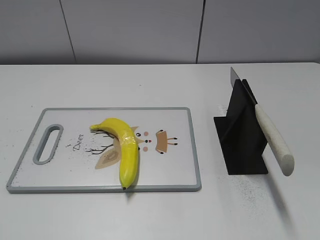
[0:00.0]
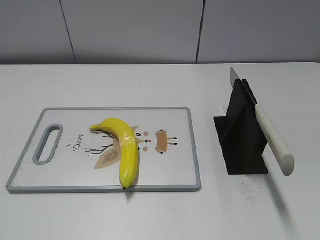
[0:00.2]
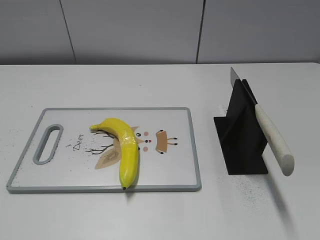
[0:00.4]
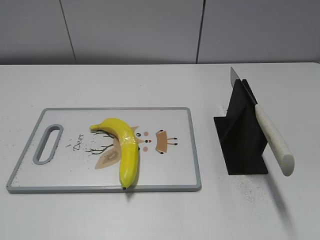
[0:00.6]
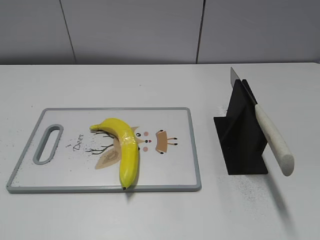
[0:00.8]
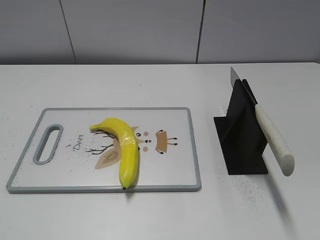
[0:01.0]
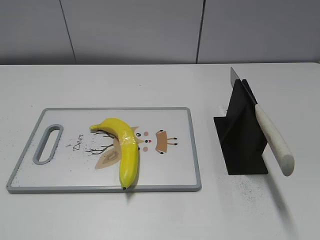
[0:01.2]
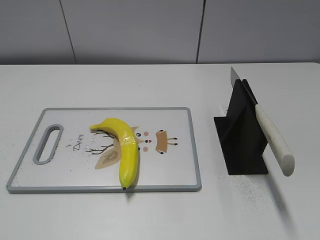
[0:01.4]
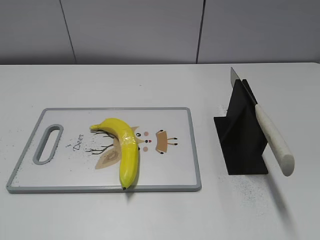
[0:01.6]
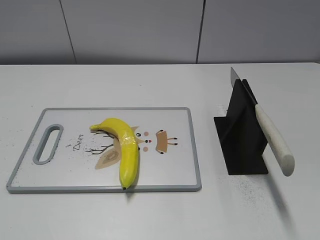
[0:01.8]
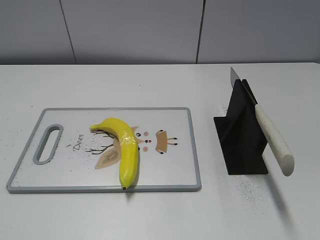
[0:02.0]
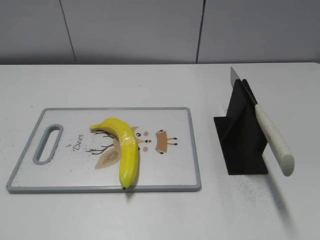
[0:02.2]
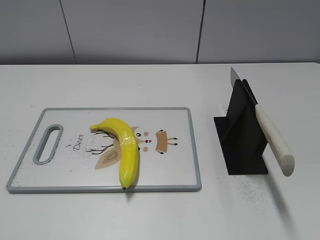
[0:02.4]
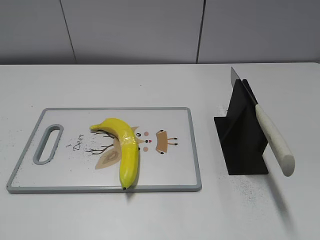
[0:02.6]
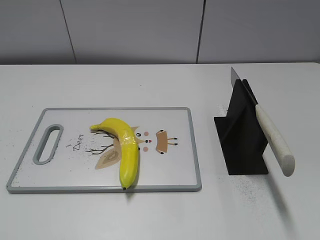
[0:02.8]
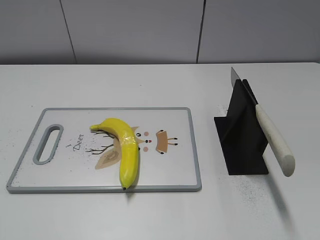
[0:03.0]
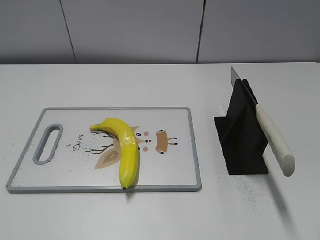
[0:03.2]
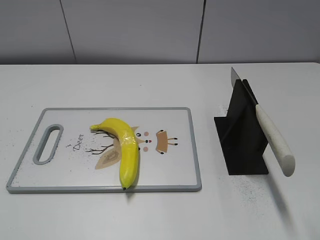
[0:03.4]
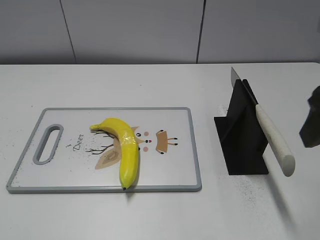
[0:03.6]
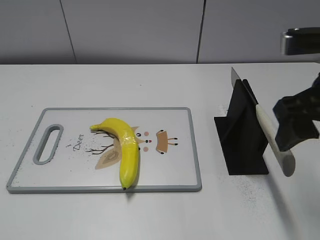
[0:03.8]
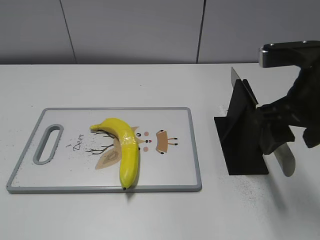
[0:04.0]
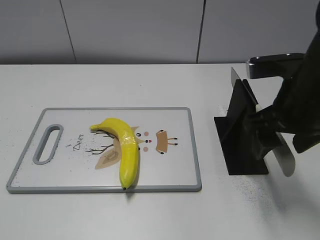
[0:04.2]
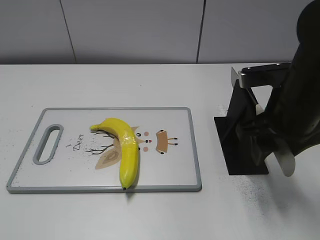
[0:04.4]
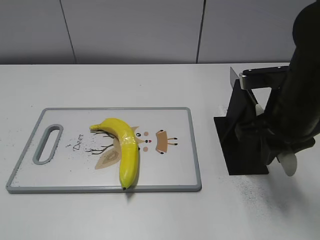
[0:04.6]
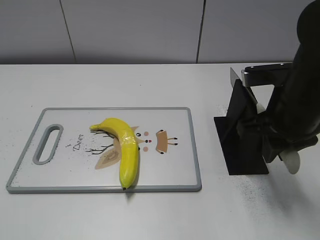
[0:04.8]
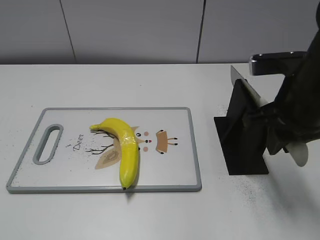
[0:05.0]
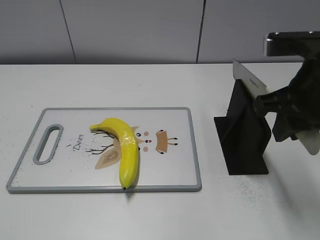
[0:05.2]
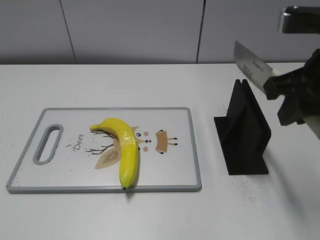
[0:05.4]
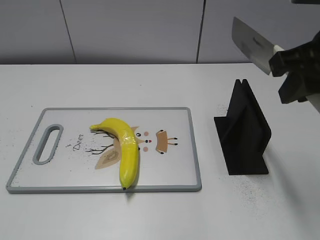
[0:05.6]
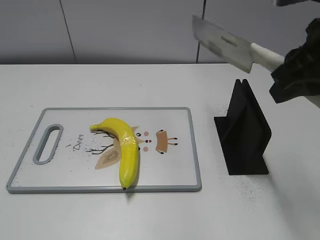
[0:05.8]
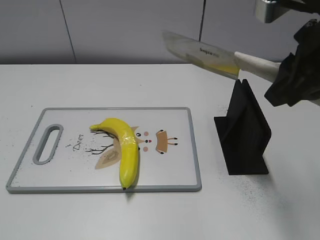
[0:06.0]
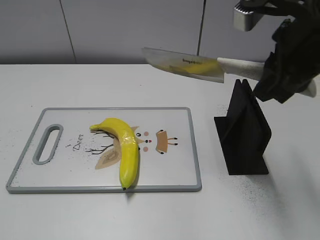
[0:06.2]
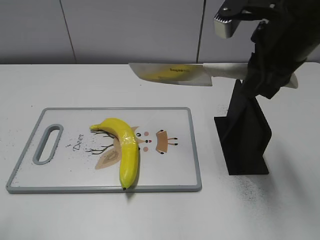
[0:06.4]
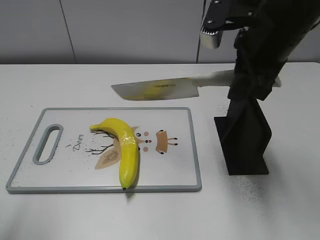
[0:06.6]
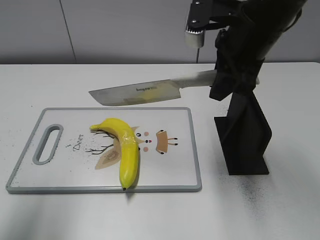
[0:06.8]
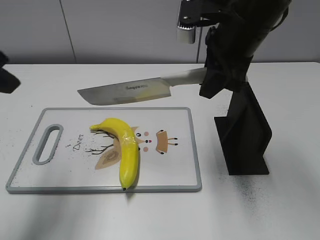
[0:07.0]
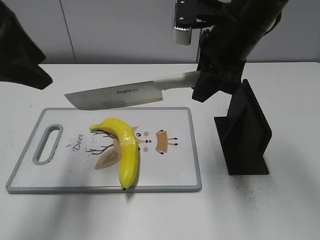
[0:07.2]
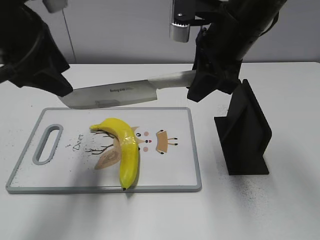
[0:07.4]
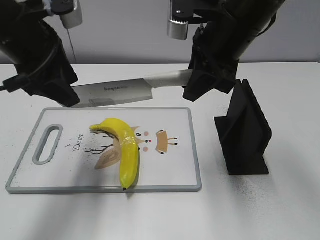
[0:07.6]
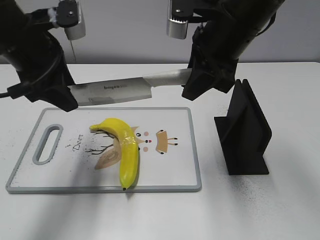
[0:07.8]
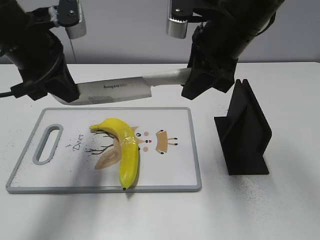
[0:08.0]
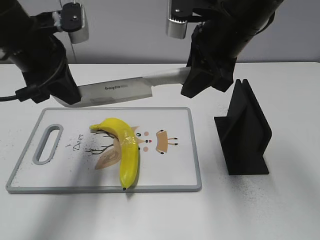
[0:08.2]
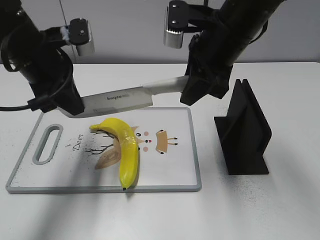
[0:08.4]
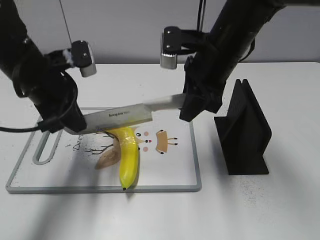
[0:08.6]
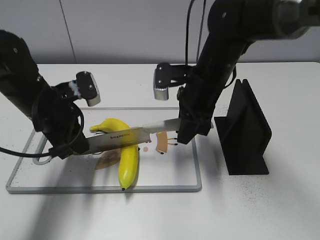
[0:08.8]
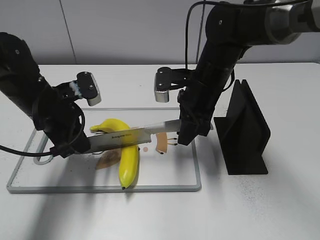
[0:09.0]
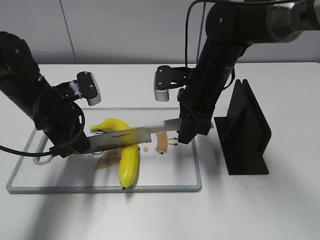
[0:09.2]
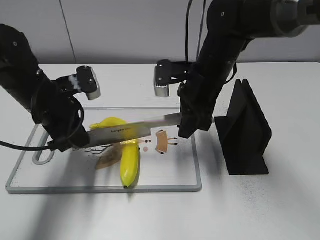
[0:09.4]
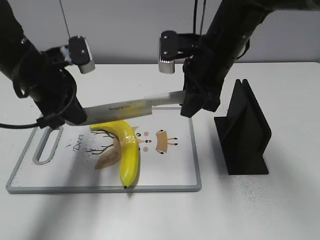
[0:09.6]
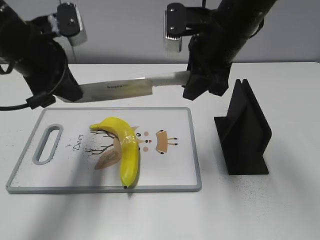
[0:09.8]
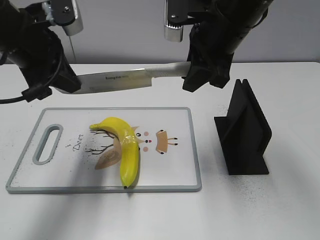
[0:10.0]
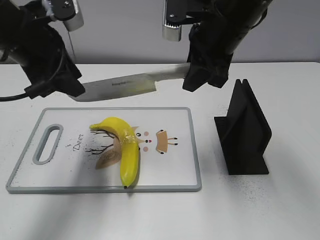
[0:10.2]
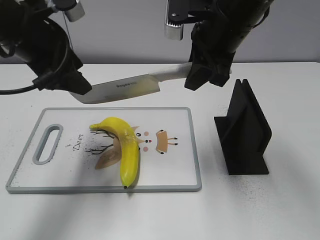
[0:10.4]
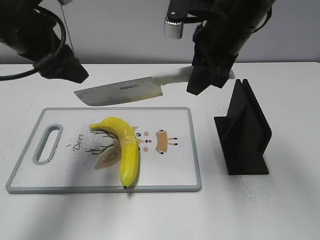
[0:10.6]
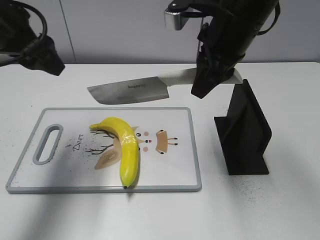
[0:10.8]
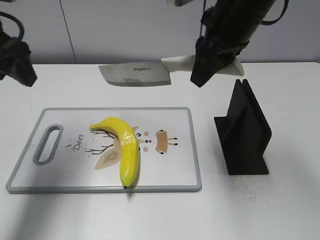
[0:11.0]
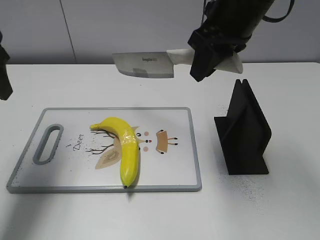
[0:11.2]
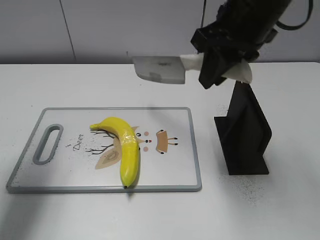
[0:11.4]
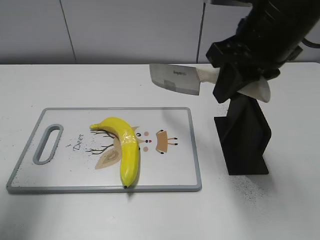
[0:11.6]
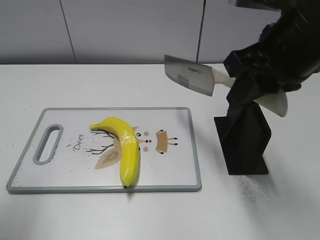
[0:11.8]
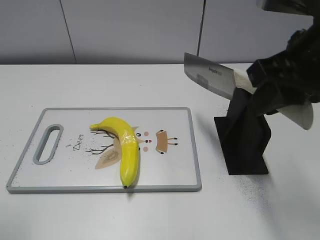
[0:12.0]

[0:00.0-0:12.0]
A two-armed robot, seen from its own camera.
Task of the whole recording: cut plastic banana.
Step, 0:00.0 to 0:05.6: Grab the knife handle with your right hand.
Step, 0:05.8 to 0:10.0: Lift the knife with your right hand.
Step, 0:10.2 to 0:11.2: Cut the banana with your right hand.
0:03.0 to 0:04.4: The right gripper shifts roughly 20 cm forward, downward and to the left.
0:04.4 to 0:06.0: The right gripper goes some 10 cm upward, and closes its fingers.
0:06.0 to 0:07.6: The left gripper travels forward and to the right by some 30 cm. The right gripper travels forward and to the left by some 10 cm.
0:07.6 to 0:09.0: Both grippers move downward, roughly 15 cm. The left gripper closes its fingers.
0:09.0 to 0:10.4: The grippers both shift upward by some 15 cm. The left gripper opens.
0:10.4 to 0:12.0: The right gripper goes some 15 cm backward and to the right. Meanwhile the left gripper heads backward and to the left, covering roughly 20 cm.

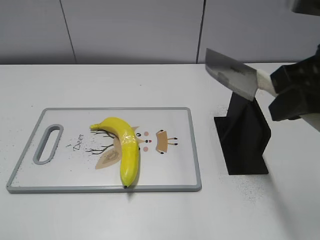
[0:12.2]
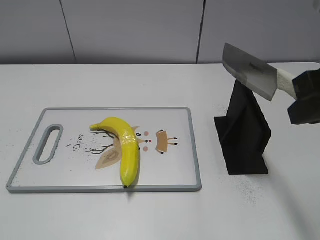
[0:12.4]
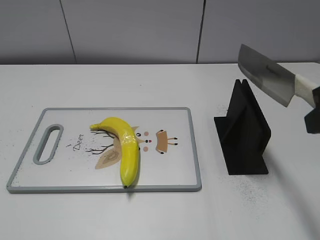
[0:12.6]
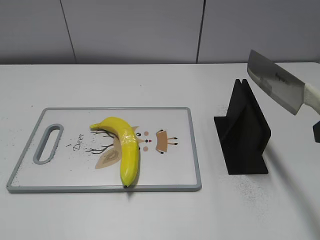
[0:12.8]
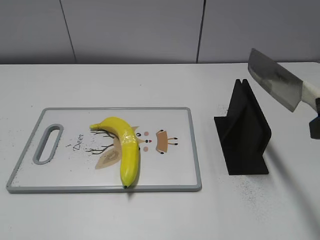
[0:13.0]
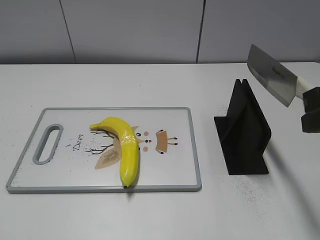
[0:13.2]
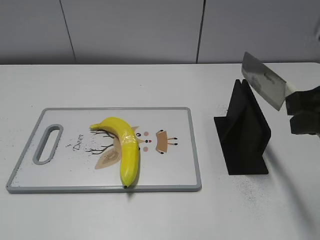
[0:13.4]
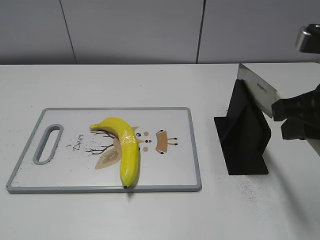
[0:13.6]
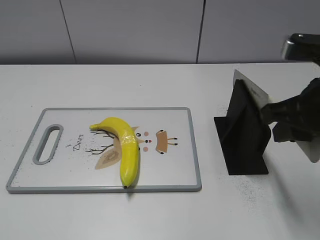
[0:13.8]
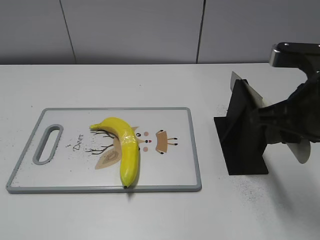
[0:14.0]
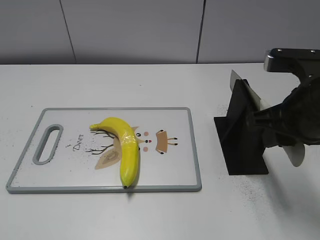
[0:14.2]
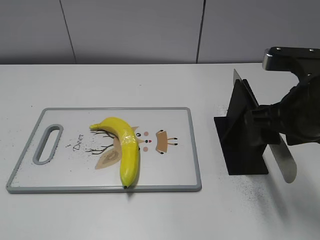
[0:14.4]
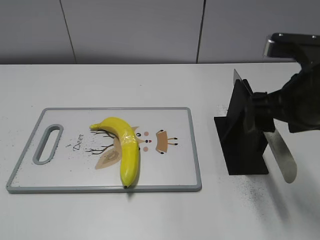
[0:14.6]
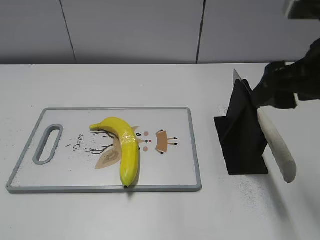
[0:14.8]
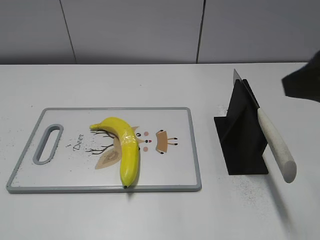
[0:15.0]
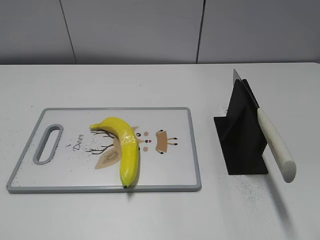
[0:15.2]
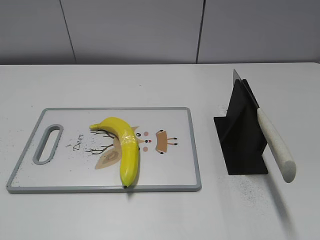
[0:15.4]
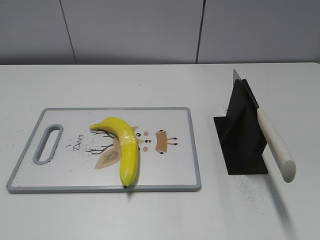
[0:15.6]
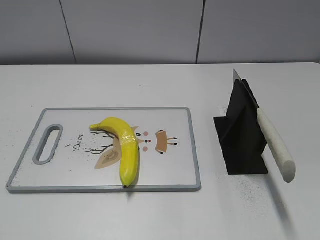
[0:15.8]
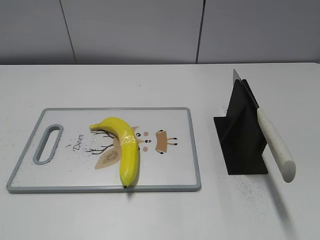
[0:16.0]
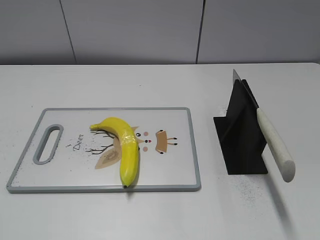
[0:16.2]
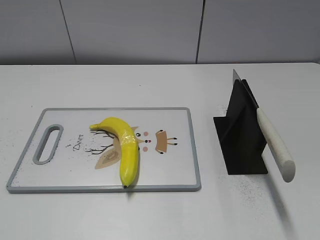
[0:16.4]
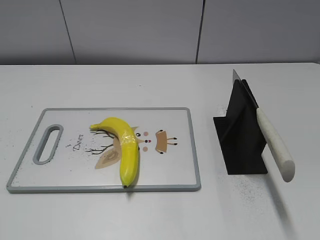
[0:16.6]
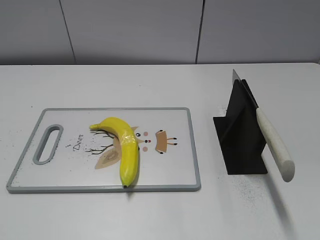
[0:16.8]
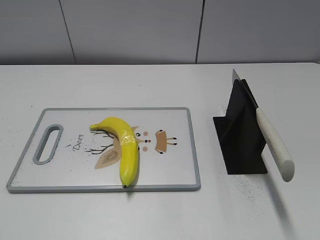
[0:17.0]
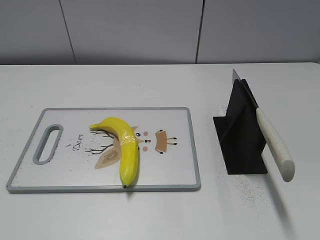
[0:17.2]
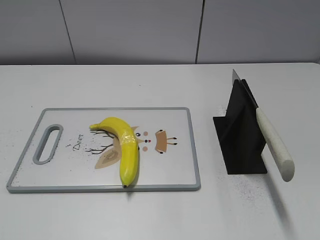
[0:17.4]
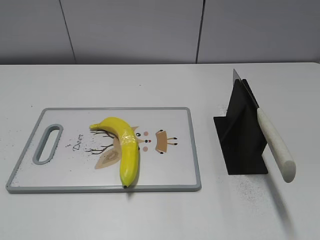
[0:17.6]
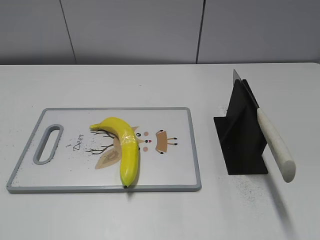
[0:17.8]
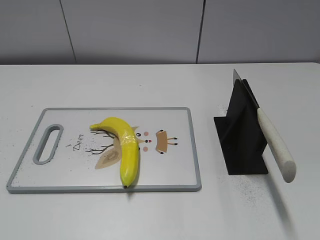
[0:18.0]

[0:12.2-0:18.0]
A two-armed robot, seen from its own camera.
Task of the whole recording: cut plastic banana.
Step, 0:12.6 to 0:18.0: Place the knife on the storage rack with your right hand.
0:13.6 to 0:15.0: The right gripper travels upward by approximately 5 cm, and opens its fingers.
0:15.0 to 0:16.6: The right gripper moves backward and to the right, about 20 cm.

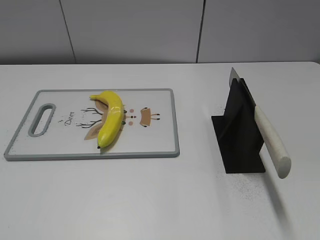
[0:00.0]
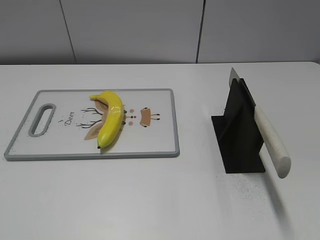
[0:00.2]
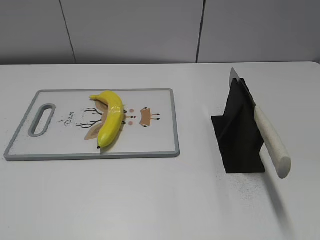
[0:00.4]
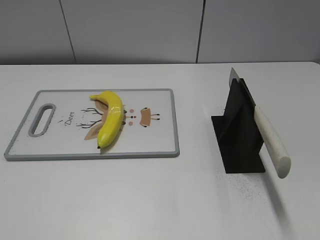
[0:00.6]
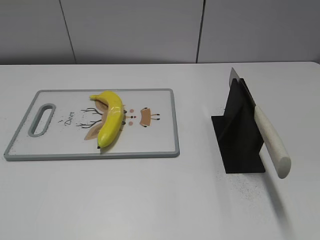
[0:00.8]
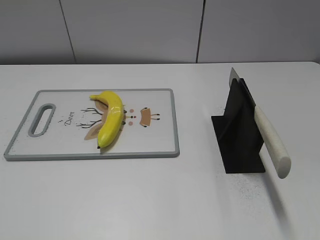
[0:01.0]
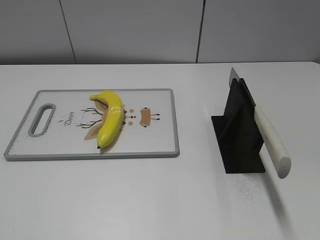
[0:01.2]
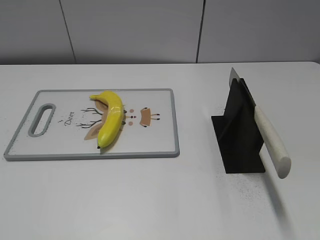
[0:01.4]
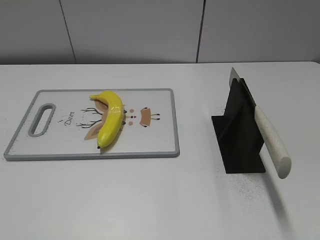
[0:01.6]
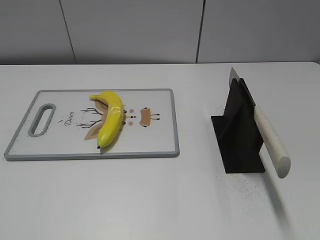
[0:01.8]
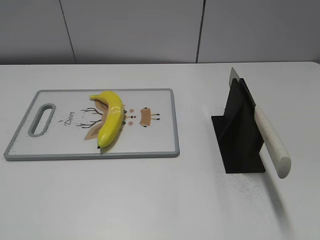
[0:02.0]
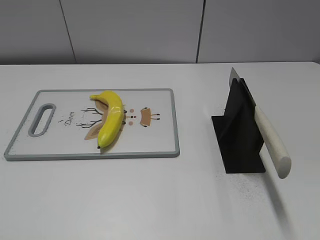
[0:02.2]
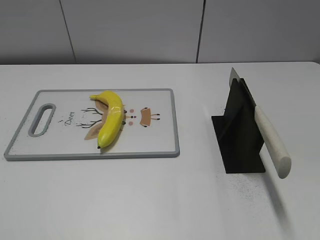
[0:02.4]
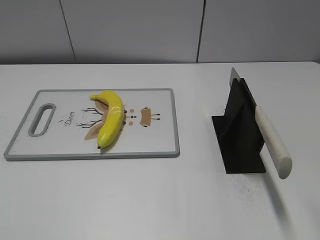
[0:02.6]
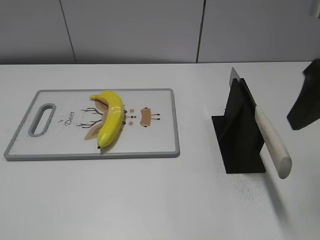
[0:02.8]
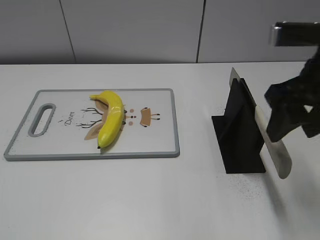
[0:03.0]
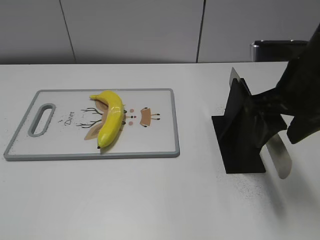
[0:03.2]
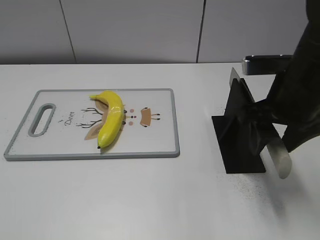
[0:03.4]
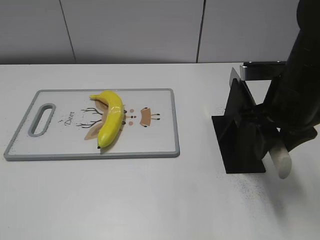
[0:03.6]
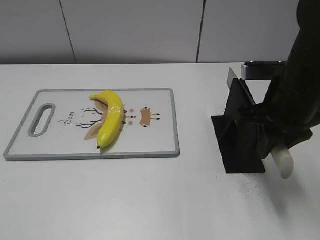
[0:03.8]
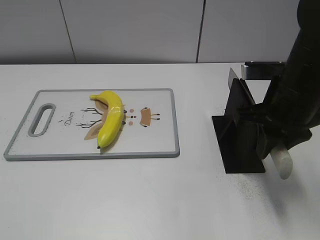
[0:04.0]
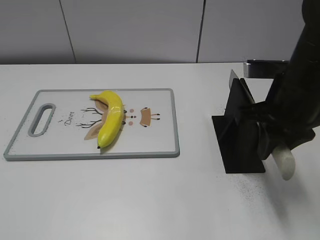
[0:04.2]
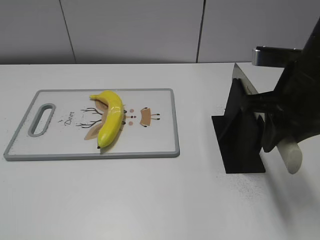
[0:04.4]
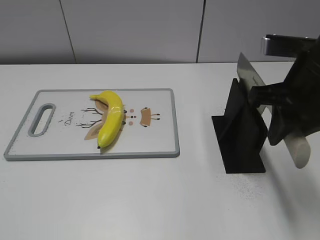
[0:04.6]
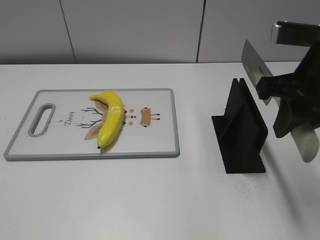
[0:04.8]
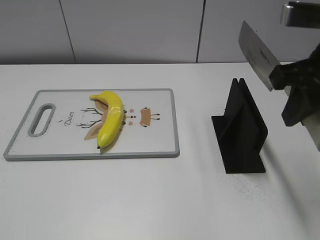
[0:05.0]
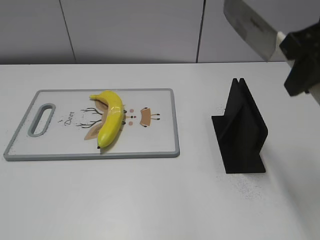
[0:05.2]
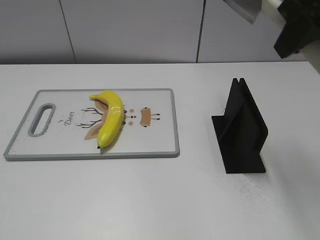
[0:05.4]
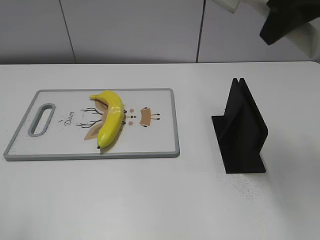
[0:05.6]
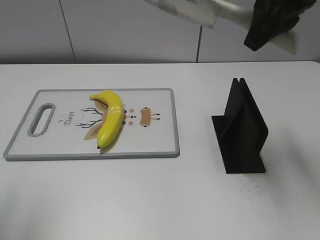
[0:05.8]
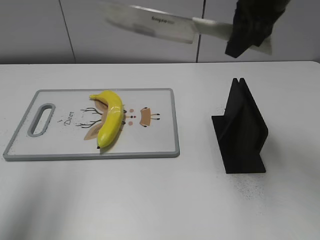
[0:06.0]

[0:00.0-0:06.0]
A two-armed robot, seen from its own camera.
Task of the whole recording: cut plastic banana.
Step, 0:00.0 to 0:04.6: Grab the knife handle with your right hand.
0:01.6 to 0:03.0: The right gripper heads forward and to the left, covering roughly 25 cm.
0:03.0 to 0:04.4: The right gripper closes.
0:04.4 to 0:06.0: The right gripper goes roughly 15 cm forward and upward. The left gripper travels forward and upward by approximately 25 cm.
